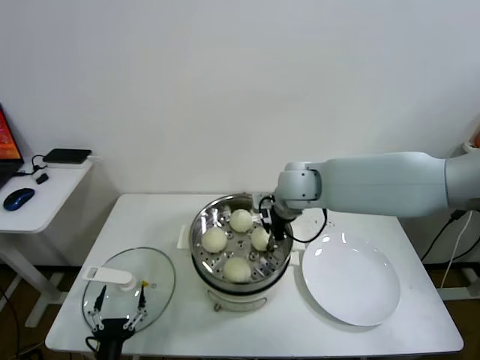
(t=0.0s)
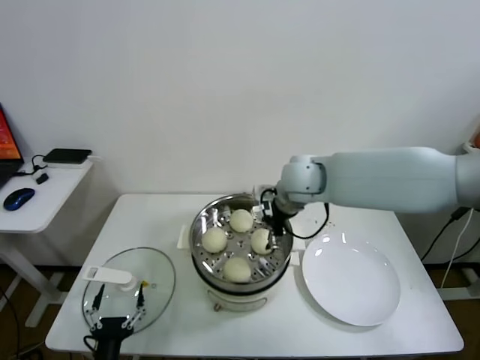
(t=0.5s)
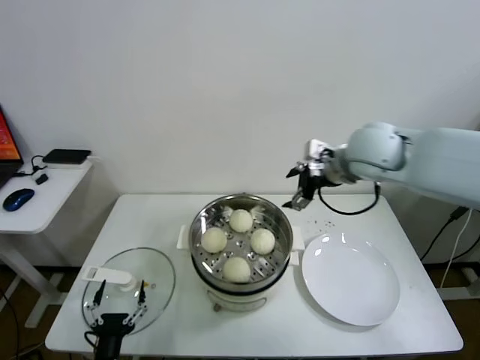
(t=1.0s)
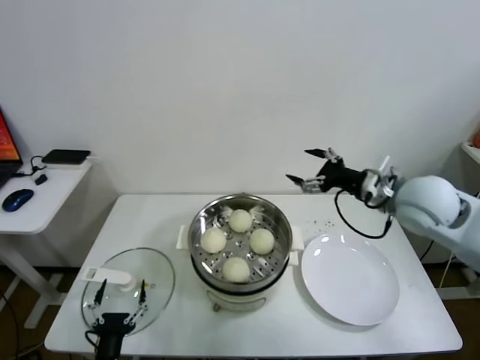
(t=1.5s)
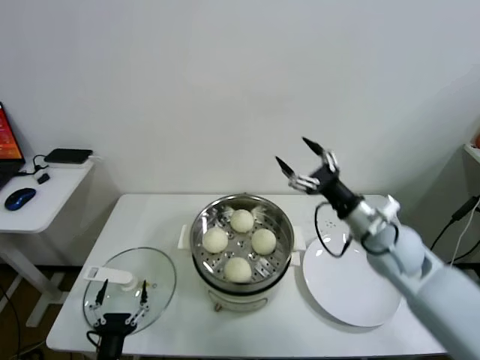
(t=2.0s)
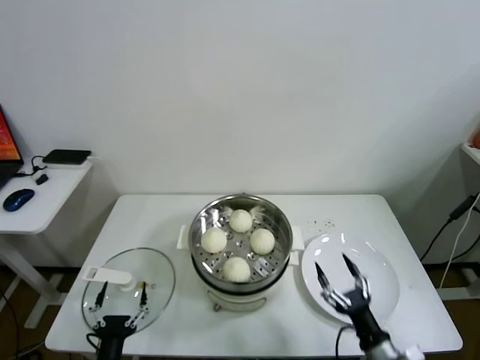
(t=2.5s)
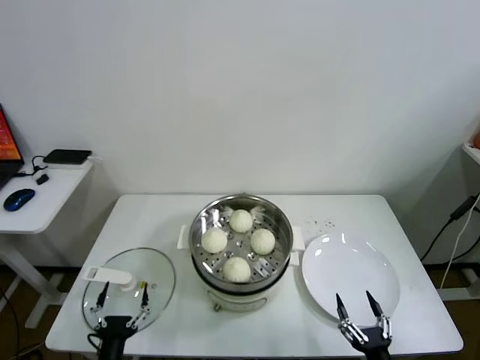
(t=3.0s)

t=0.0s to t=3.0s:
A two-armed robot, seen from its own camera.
Task of the whole recording: take steamed baozi put them in steamer.
t=0.0s to t=1.5s: The right gripper travels to the right and backward by some 20 cm, and opens its fingers.
t=1.5s to t=3.0s: The right gripper travels downward and backward by approximately 50 cm.
